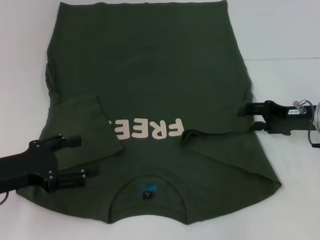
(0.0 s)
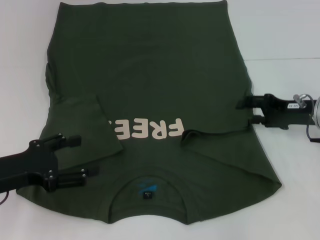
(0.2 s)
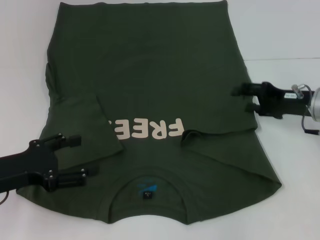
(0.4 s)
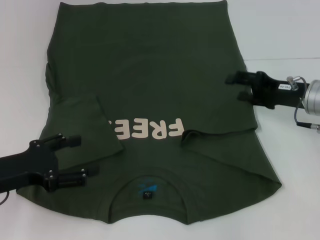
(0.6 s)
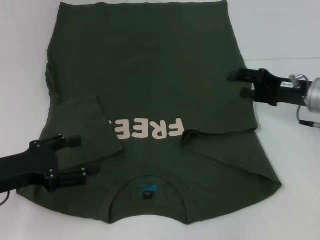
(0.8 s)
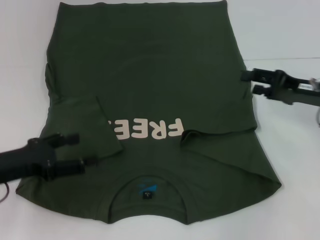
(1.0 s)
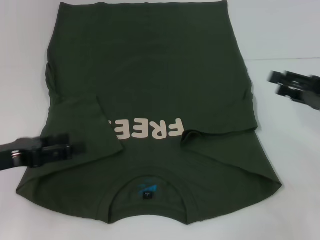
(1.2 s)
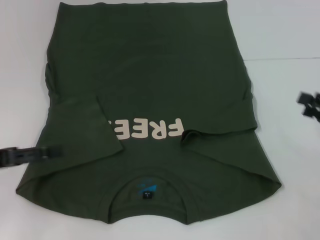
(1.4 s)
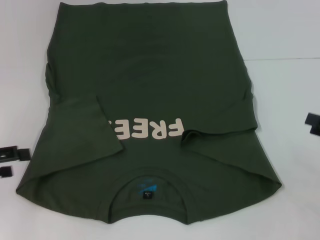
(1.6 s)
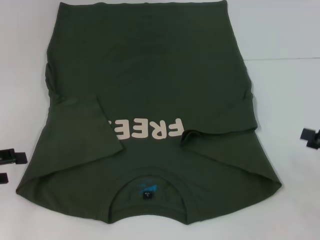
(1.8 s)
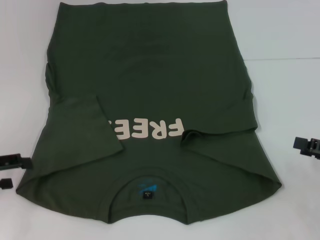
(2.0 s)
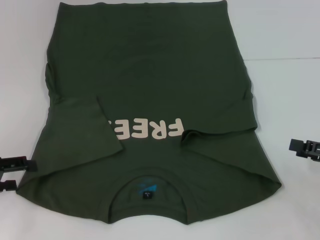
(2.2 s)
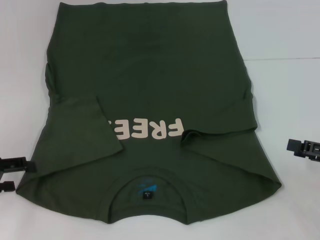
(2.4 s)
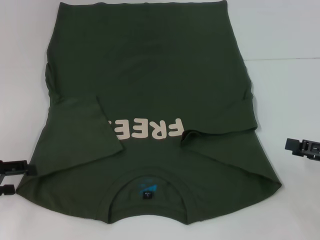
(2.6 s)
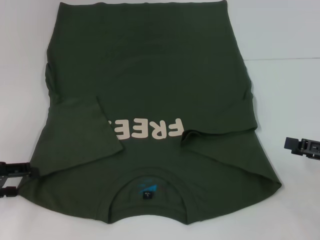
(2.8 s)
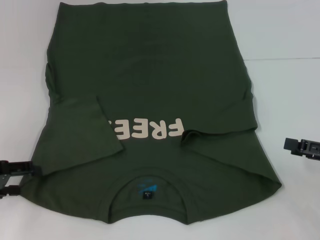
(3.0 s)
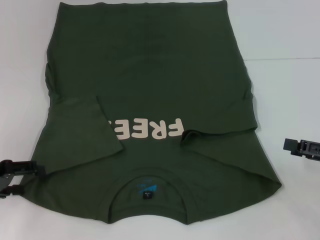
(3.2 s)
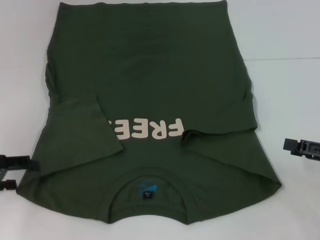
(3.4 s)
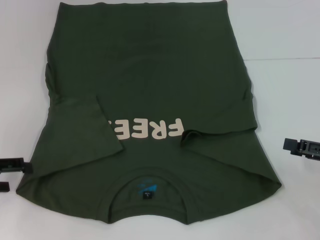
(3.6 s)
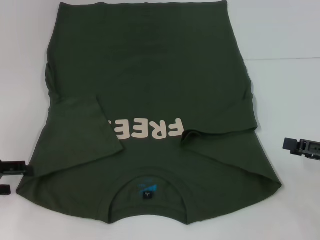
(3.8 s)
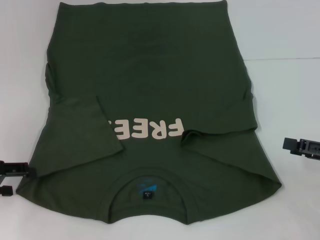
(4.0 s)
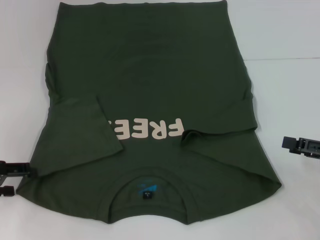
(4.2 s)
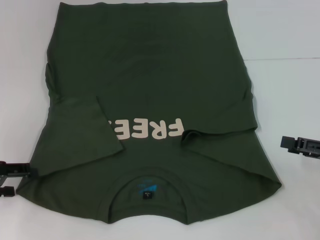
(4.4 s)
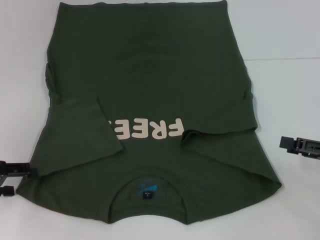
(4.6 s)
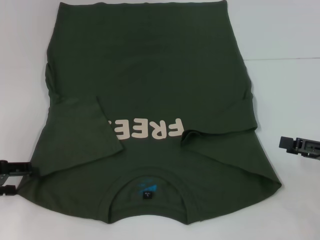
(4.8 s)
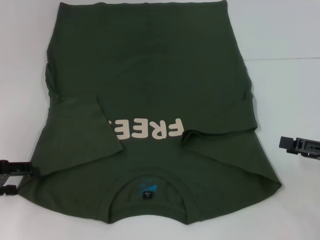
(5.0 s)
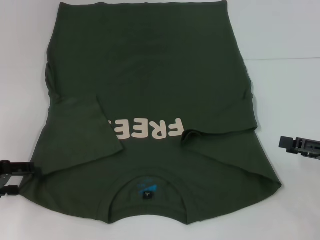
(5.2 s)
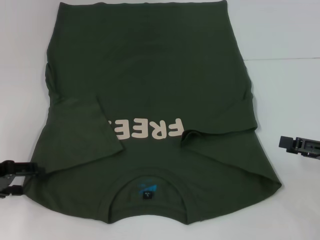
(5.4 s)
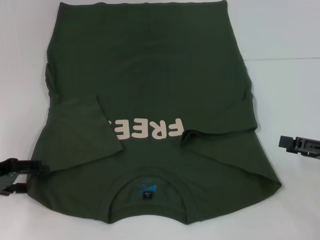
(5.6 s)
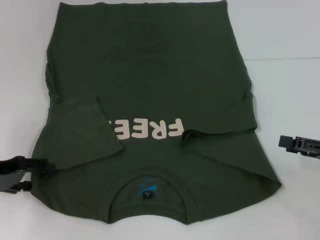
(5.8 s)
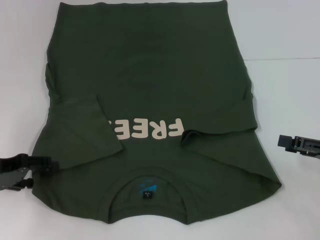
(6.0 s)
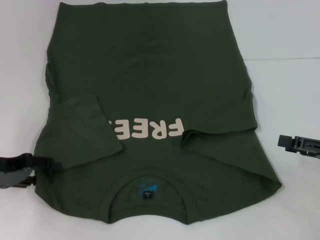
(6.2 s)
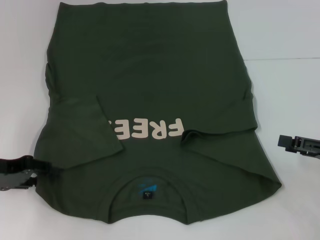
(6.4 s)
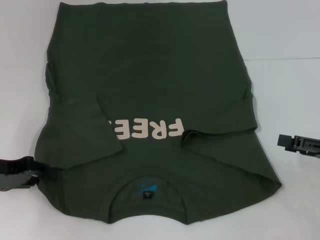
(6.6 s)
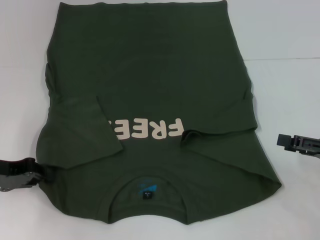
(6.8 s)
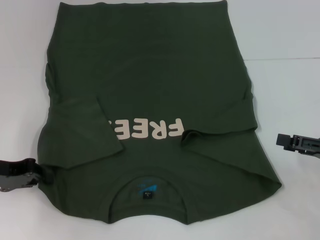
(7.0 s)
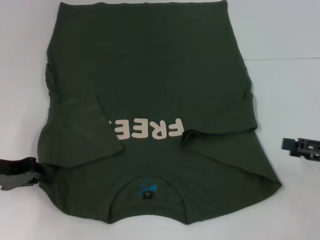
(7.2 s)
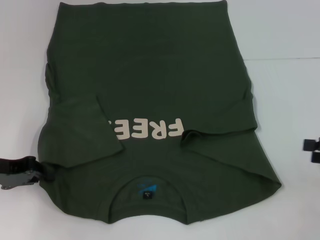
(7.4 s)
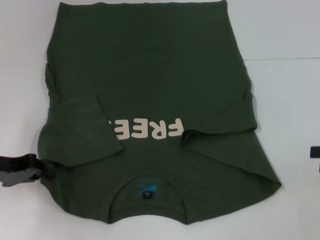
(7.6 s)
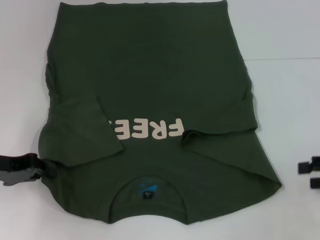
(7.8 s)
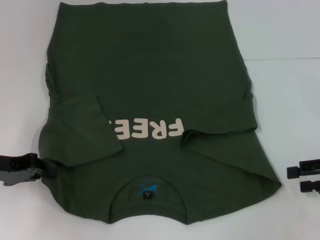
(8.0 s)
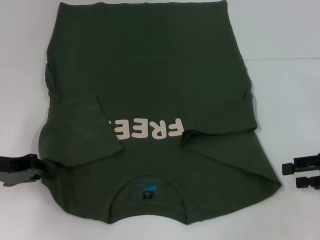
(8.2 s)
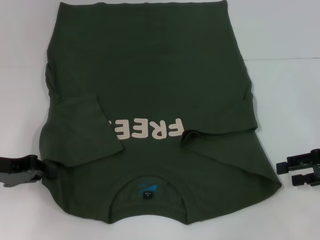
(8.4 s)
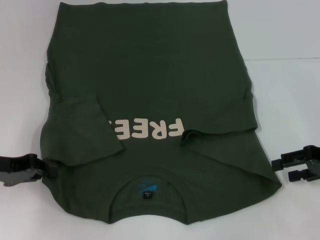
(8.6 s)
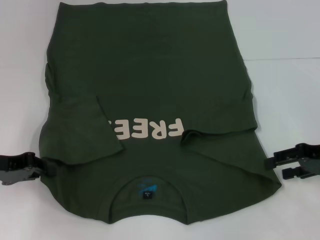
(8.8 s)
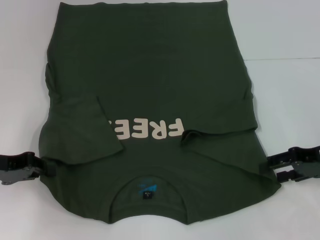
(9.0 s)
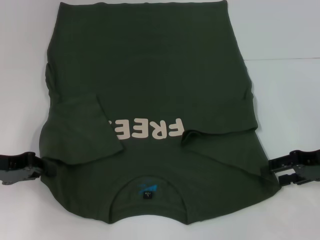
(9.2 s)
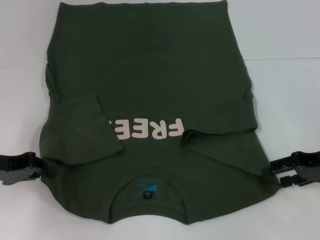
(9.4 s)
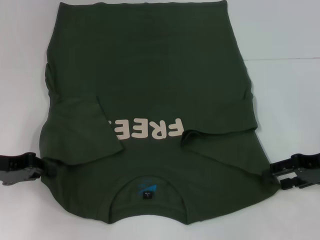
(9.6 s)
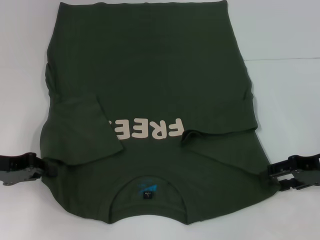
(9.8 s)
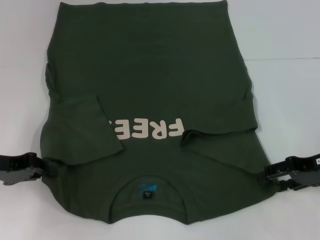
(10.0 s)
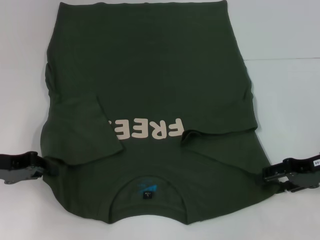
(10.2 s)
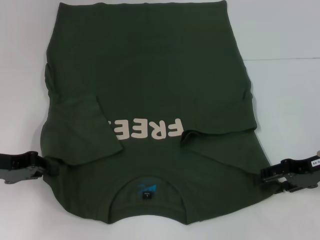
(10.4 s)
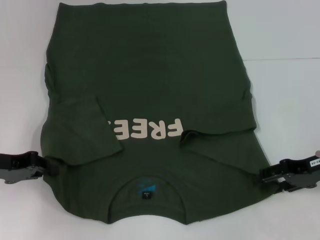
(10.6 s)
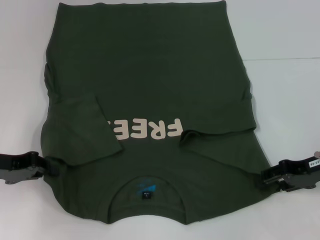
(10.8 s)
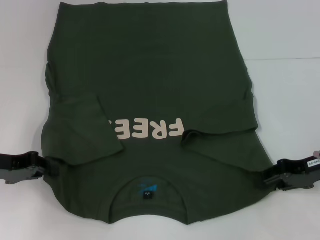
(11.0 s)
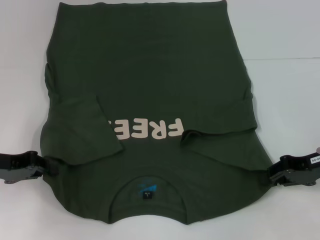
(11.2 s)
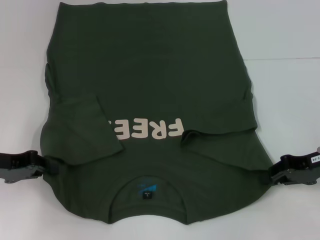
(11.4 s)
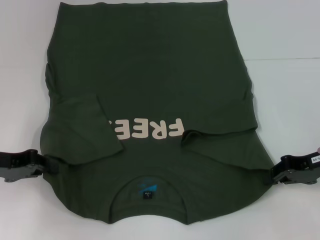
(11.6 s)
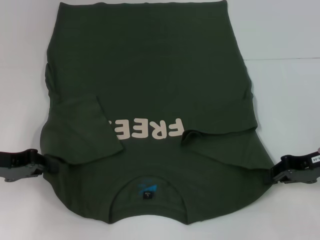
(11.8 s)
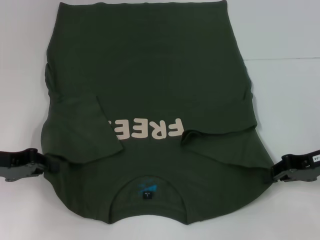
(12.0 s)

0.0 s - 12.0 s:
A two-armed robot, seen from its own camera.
Step, 0.4 s - 6.8 s: Grab the bottom left corner with your left hand.
Step, 7.0 s - 11.8 s: Grab the bottom right corner with your right hand.
0.0 s - 1.6 s: The right gripper is displaced backward and to the right by roughly 15 cm. Meanwhile the left gripper shifts some 10 cm to the left.
1.6 s - 3.0 s: The grippers move only a little.
3.0 s - 4.4 s: Neither gripper changes place.
4.4 s - 6.0 s: The grippers move only a little.
6.0 s - 7.6 s: The left gripper closes its fingers, while the right gripper changes place by about 5 cm.
7.6 s - 9.0 s: The right gripper moves to the left and forward, some 10 cm.
9.0 s - 10.4 s: The grippers make only small movements.
10.4 s - 12.0 s: The right gripper closes its fingers.

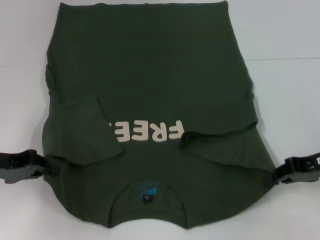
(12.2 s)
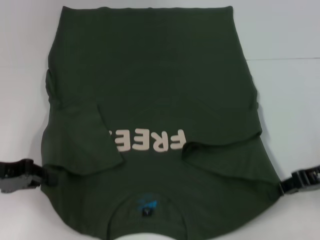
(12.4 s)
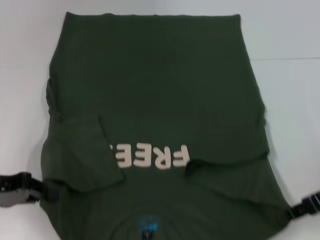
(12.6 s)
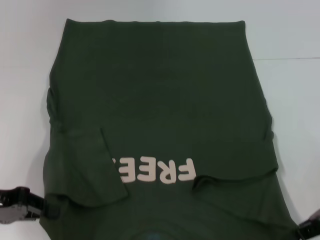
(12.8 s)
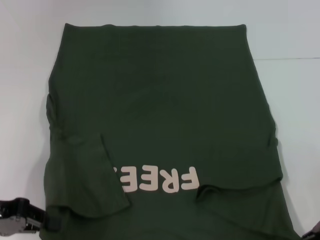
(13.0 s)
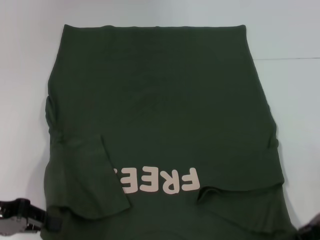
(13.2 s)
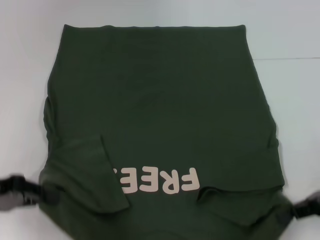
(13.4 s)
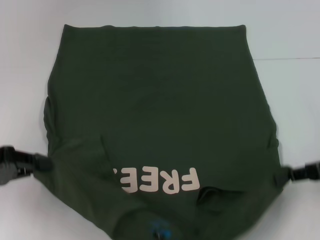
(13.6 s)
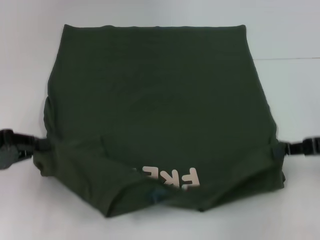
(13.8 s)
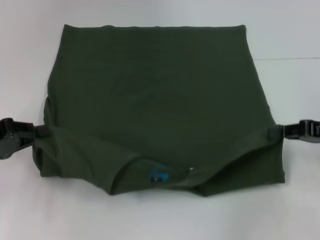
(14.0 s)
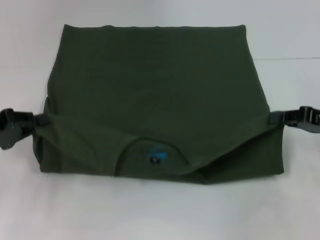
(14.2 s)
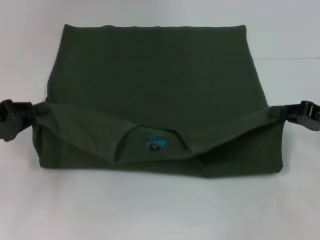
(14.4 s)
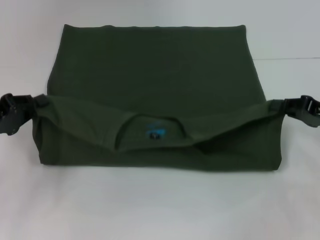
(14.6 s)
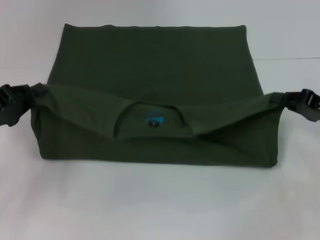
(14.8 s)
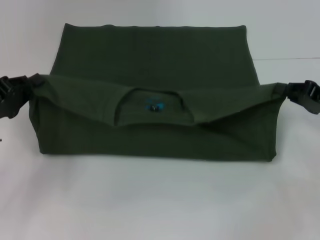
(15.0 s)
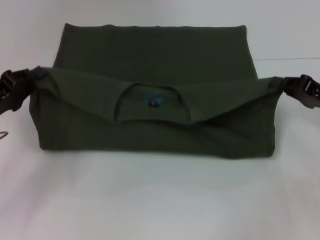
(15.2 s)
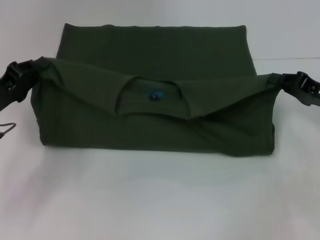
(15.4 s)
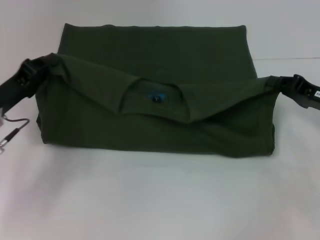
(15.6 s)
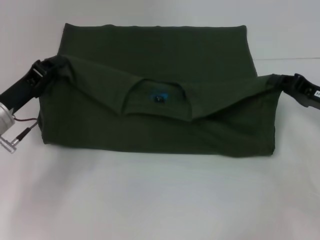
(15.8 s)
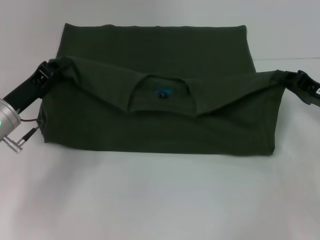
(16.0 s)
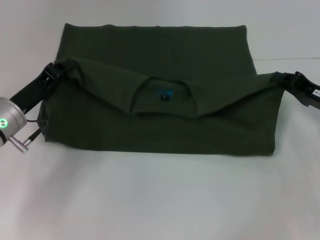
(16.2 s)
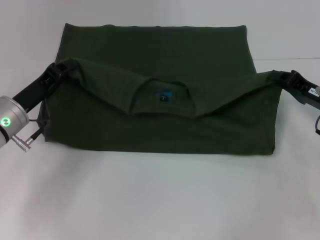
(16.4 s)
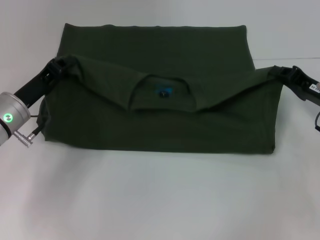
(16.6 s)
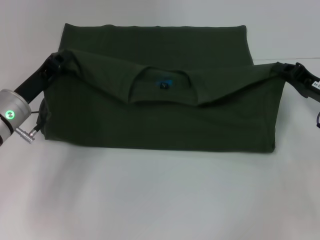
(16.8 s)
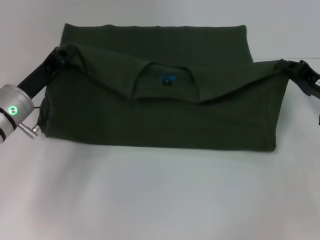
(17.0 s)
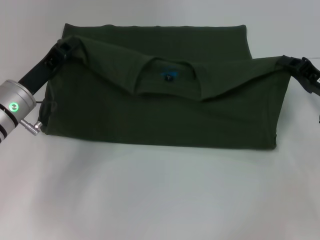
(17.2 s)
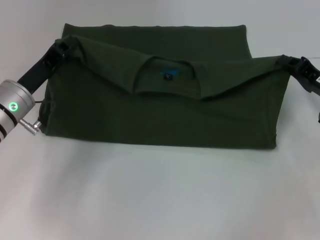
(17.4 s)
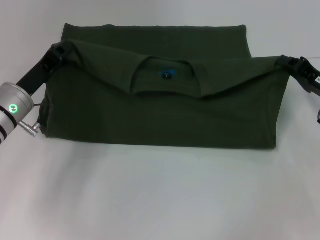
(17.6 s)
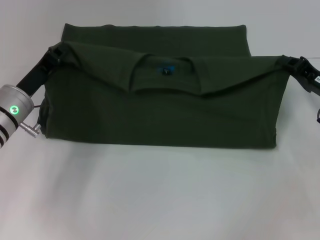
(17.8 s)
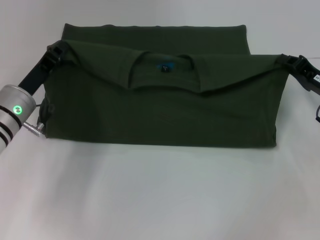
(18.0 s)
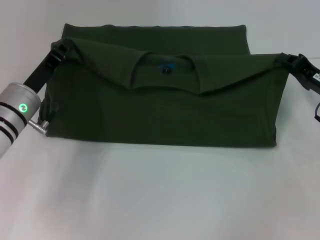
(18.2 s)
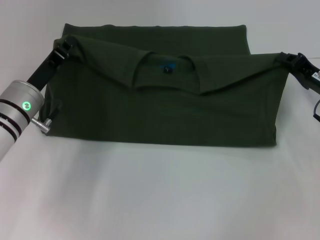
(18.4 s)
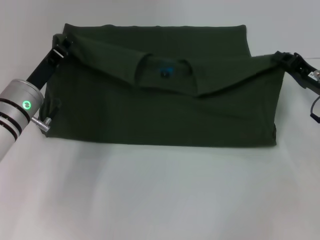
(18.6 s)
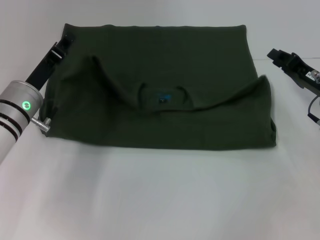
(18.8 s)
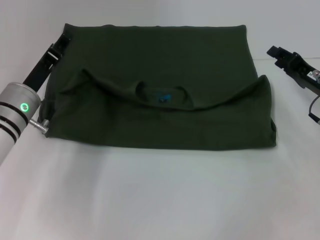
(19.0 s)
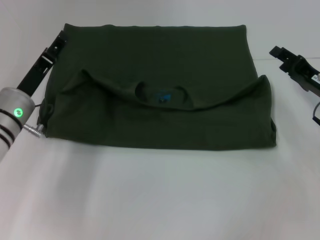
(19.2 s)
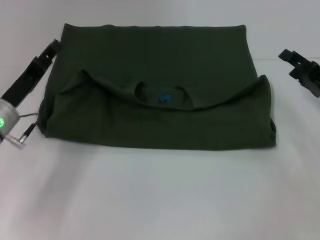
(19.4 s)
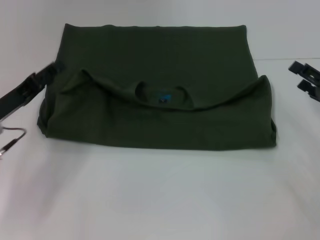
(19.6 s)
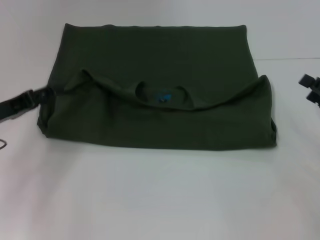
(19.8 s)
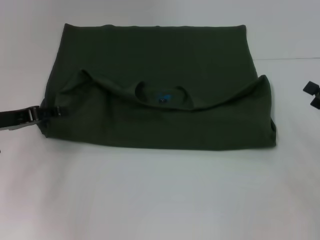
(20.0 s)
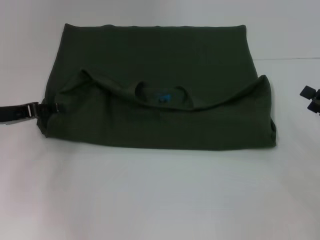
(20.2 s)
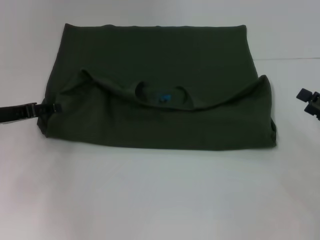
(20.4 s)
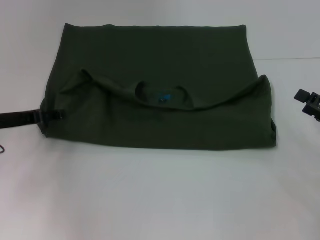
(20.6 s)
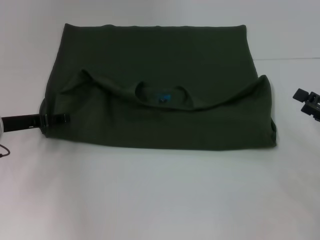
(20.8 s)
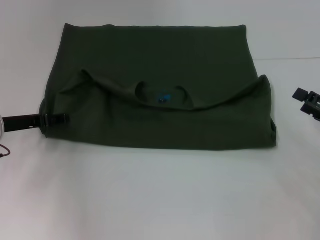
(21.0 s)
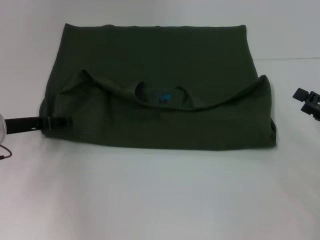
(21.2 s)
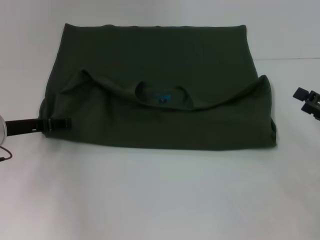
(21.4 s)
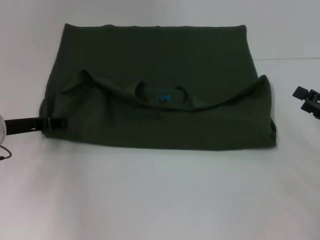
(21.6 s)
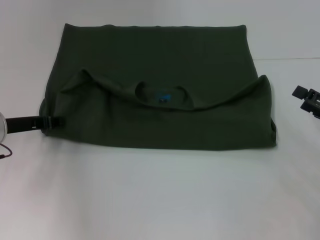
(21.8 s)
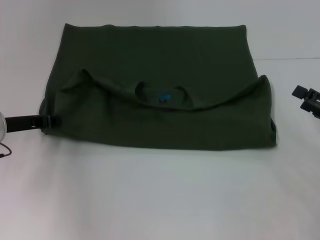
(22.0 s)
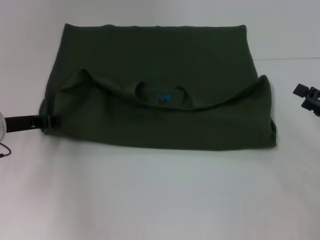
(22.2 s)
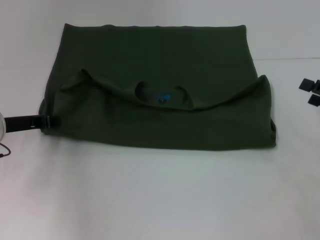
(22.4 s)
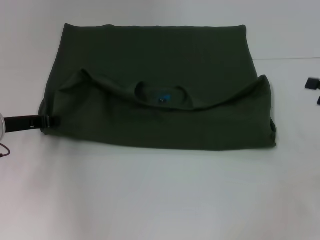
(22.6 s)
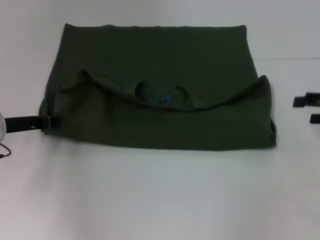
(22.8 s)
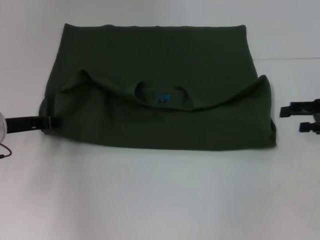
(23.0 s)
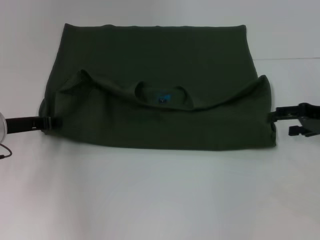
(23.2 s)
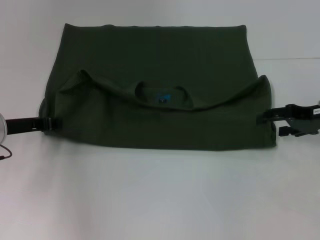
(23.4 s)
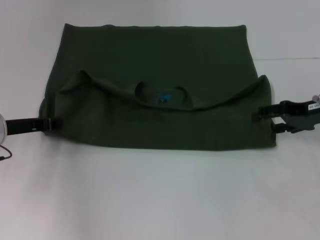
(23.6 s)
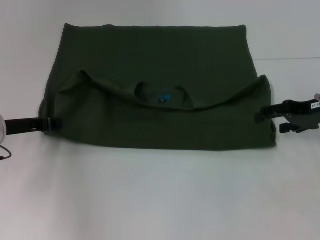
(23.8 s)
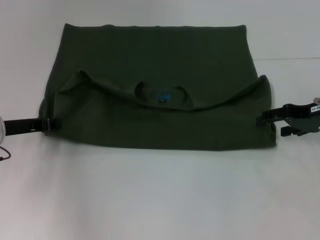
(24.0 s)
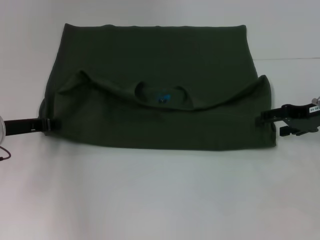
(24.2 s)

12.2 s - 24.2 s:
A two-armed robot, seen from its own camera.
Step, 12.2 s - 18.8 s: Fold the clothes with your left hand.
Step, 12.2 s - 18.8 s: Fold the clothes with your right hand.
13.8 s - 15.2 s: The left gripper ends up about 5 cm from where it was.
15.2 s - 16.6 s: The left gripper is displaced to the right by roughly 5 cm.
16.6 s - 18.2 s: The grippers move only a little.
18.2 s - 19.8 s: The right gripper travels backward and to the right by roughly 10 cm, and opens its fingers. Meanwhile the left gripper shifts some 10 cm to the left, and opens its fingers.
21.2 s - 22.6 s: The right gripper moves upward, approximately 5 cm. The left gripper closes.
22.6 s - 24.2 s: The right gripper moves to the left and forward, about 10 cm.
